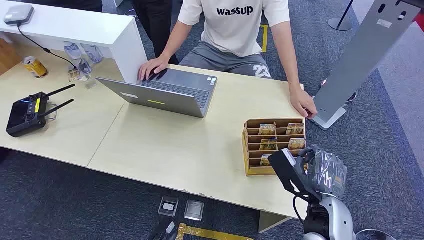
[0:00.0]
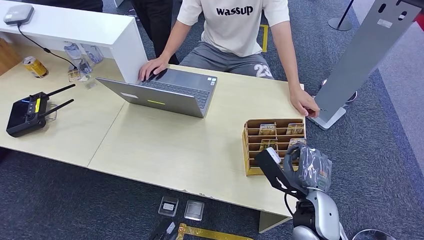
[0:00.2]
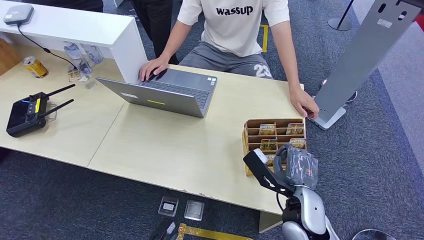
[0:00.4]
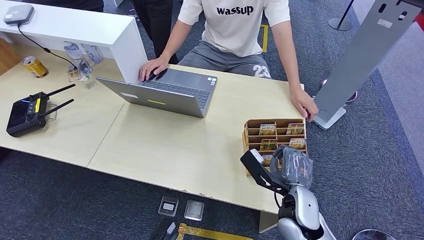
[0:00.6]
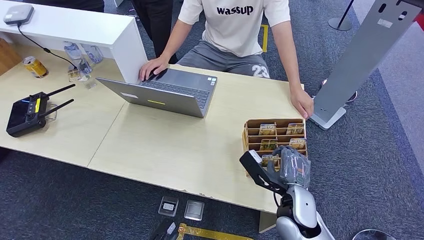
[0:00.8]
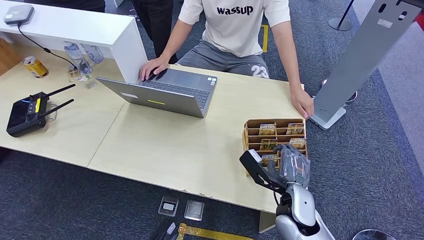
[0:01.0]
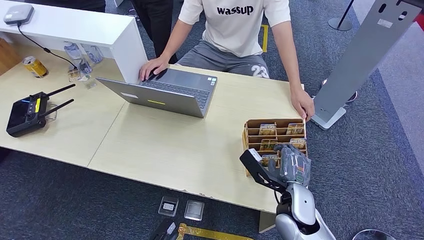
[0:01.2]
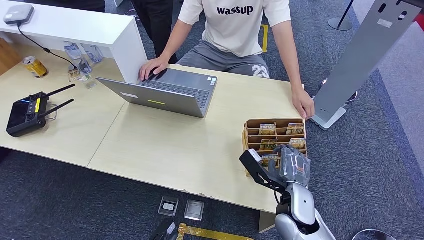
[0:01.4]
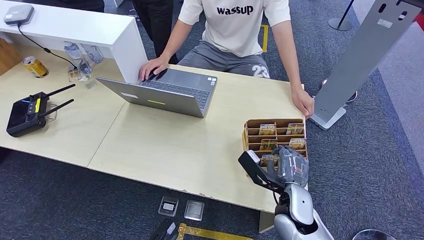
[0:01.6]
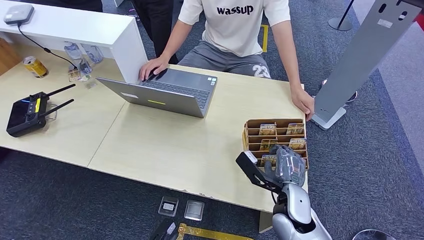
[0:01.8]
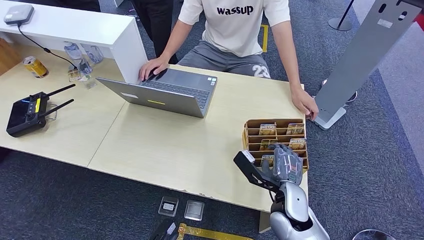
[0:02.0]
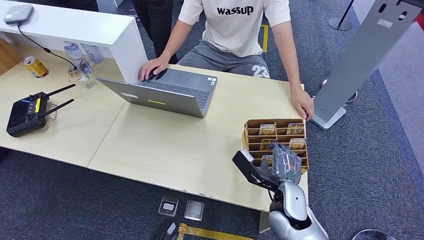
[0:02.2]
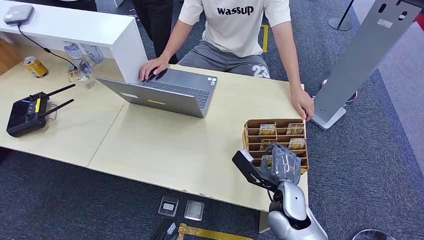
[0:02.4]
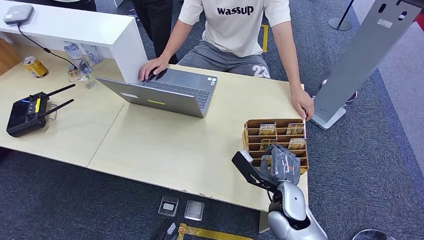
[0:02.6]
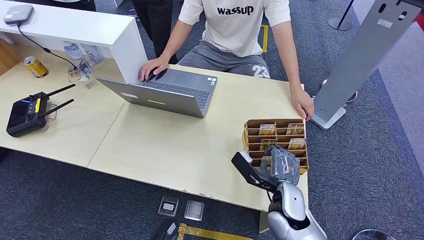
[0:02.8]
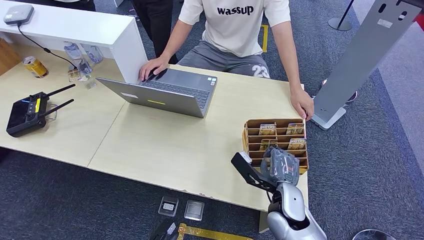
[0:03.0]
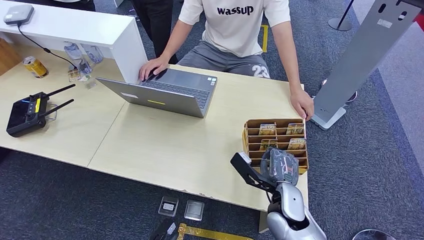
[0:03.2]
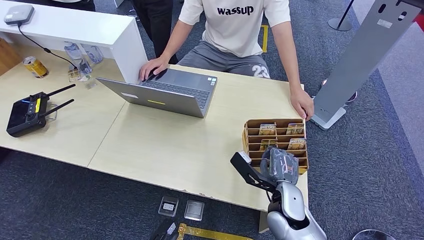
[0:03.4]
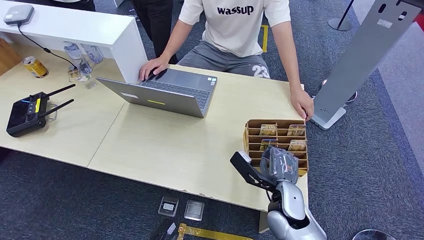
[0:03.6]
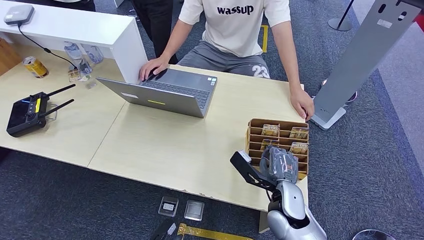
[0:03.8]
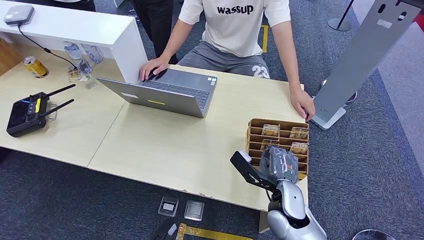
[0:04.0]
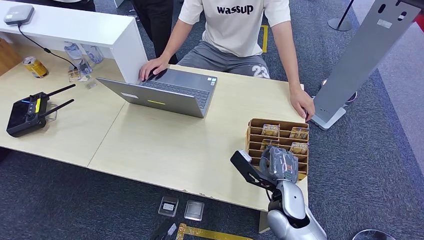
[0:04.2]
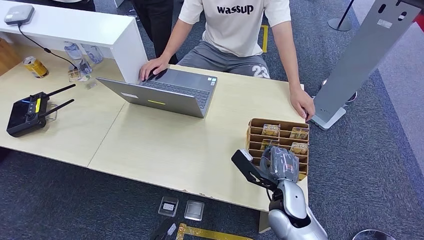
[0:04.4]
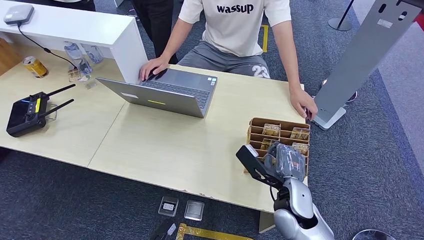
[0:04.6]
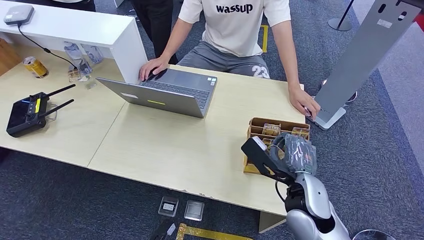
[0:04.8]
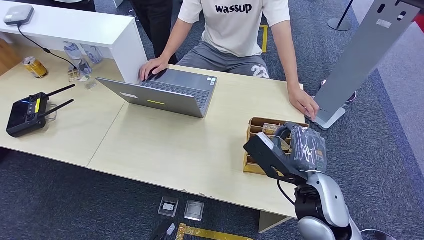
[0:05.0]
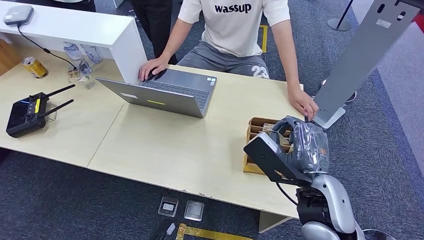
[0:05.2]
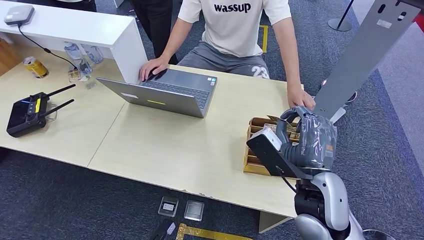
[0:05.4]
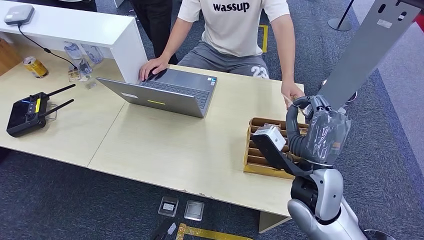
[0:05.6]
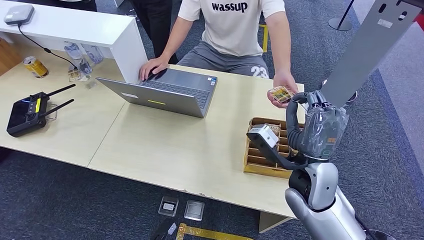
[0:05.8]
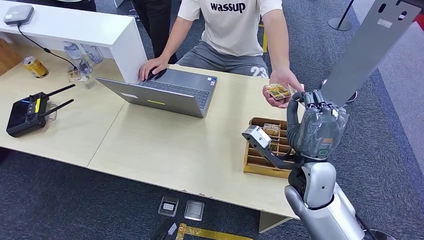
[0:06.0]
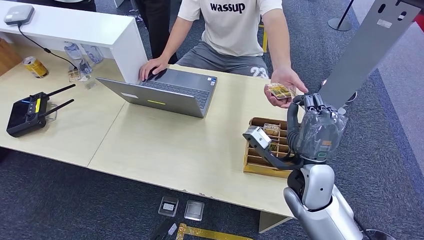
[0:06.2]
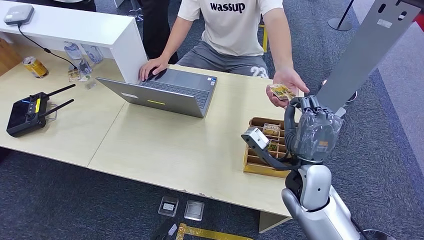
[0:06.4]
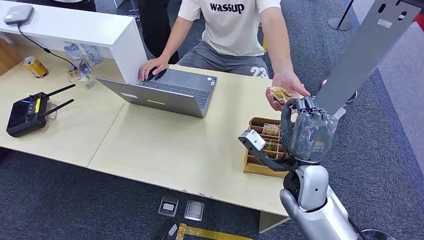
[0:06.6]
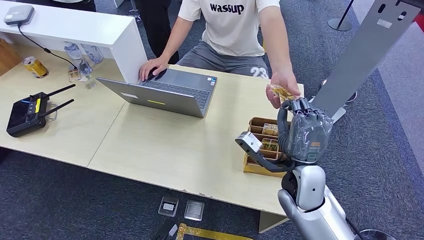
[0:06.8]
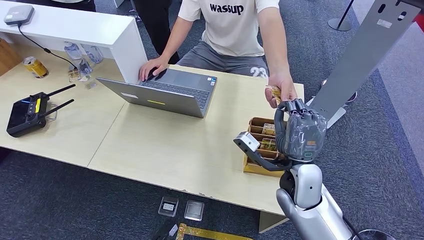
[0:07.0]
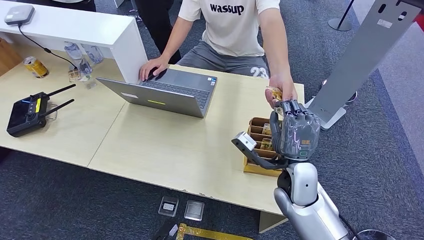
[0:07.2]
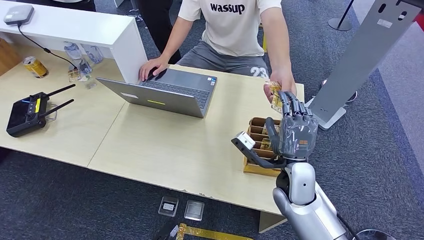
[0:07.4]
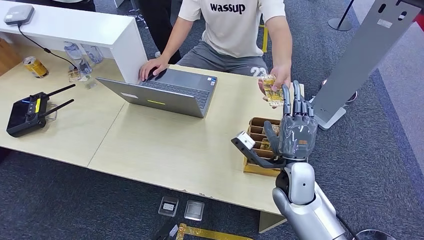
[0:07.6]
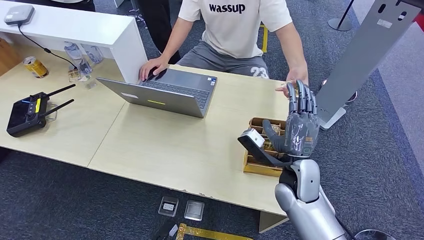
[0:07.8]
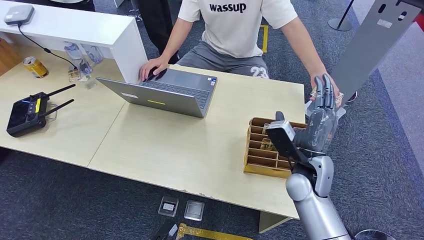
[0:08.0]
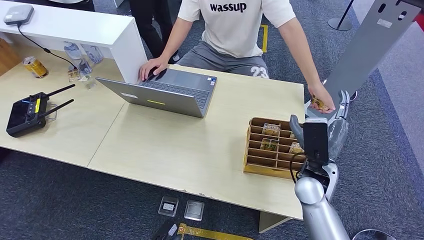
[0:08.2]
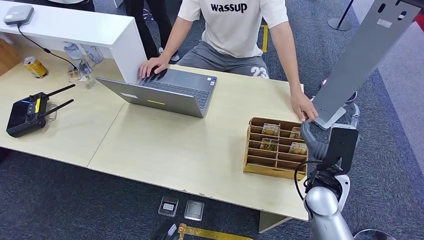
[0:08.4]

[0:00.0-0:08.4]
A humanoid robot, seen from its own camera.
Step, 0:00.0 to 0:05.2: Pick up the key card from the card box.
Step, 0:05.6 to 0:08.4: Hand the key card to the target.
0:01.4 to 0:02.8: The hands move only a little.
0:02.8 to 0:04.2: Neither hand changes place.
0:04.2 to 0:05.6: The right hand goes about 15 cm upward.
0:05.6 to 0:07.0: The right hand is displaced downward by about 5 cm.
0:07.0 to 0:08.4: The right hand moves to the right, about 5 cm.
